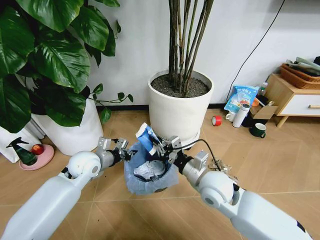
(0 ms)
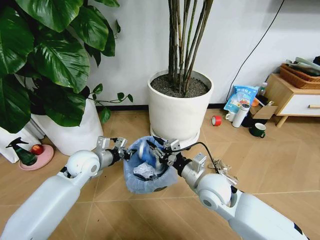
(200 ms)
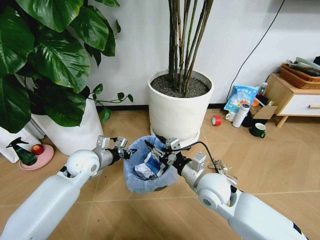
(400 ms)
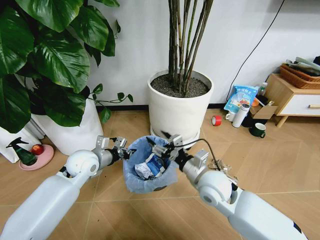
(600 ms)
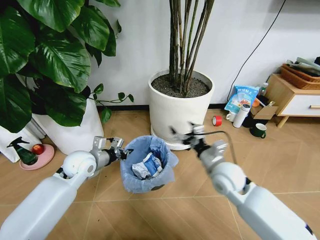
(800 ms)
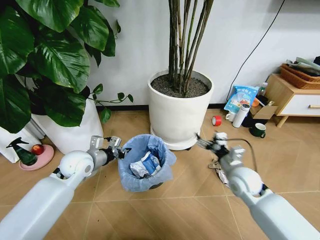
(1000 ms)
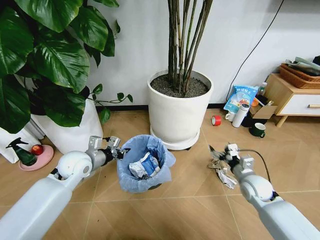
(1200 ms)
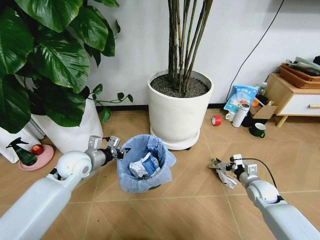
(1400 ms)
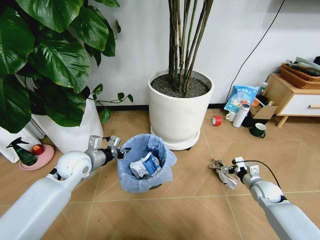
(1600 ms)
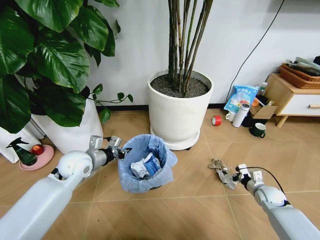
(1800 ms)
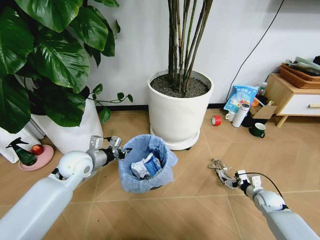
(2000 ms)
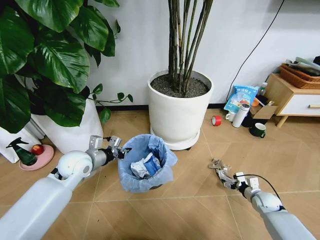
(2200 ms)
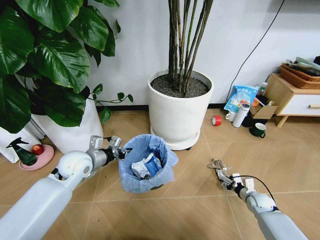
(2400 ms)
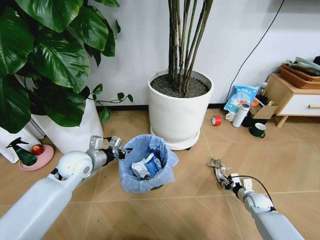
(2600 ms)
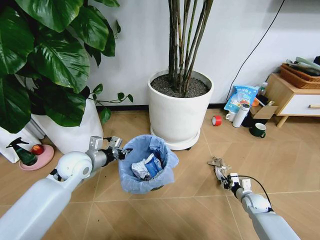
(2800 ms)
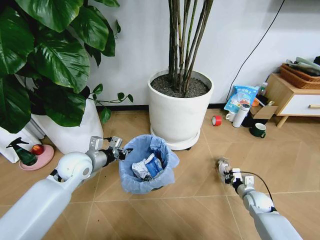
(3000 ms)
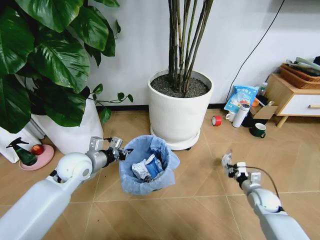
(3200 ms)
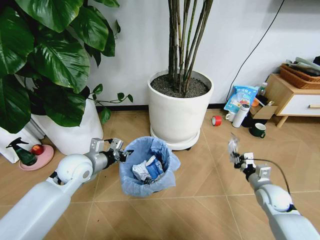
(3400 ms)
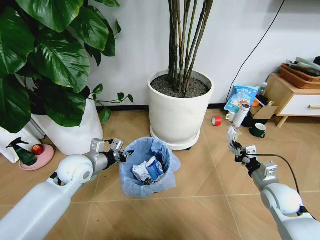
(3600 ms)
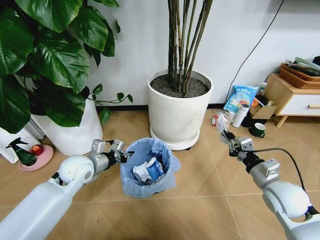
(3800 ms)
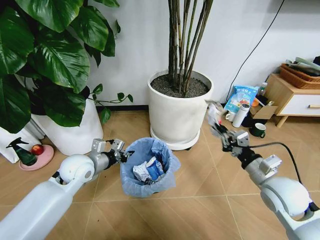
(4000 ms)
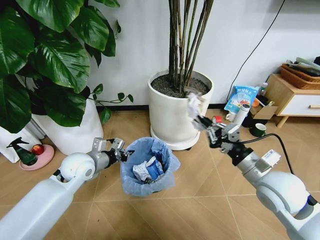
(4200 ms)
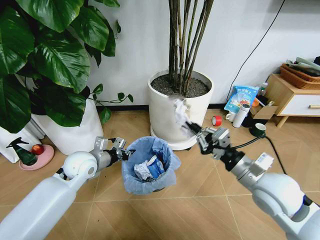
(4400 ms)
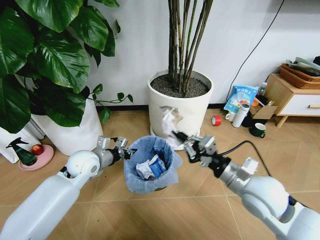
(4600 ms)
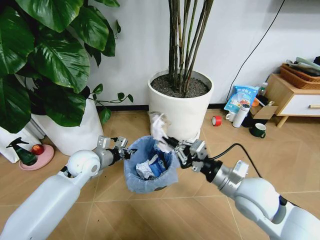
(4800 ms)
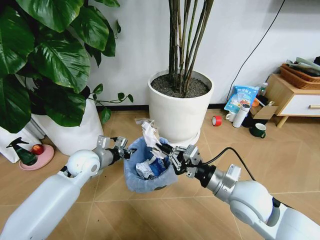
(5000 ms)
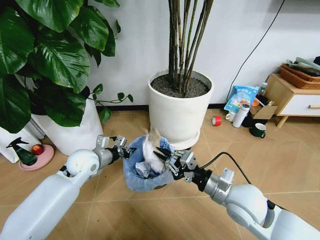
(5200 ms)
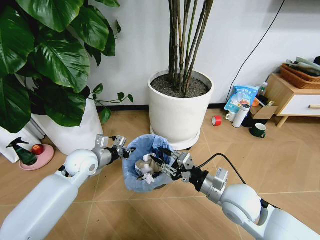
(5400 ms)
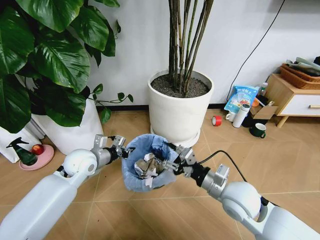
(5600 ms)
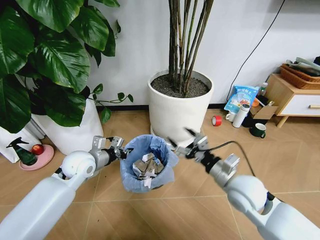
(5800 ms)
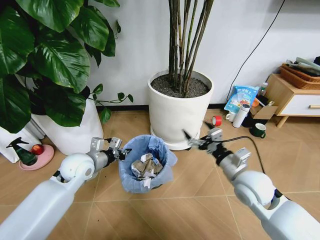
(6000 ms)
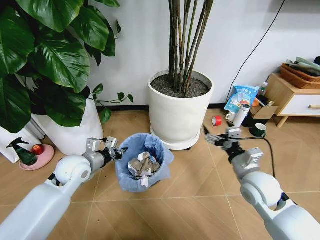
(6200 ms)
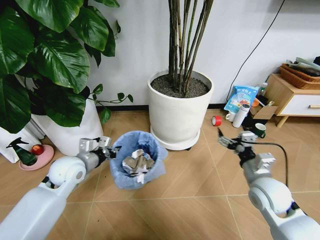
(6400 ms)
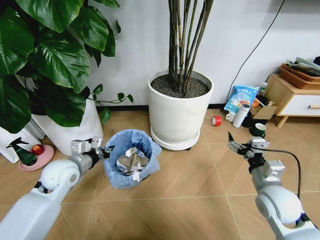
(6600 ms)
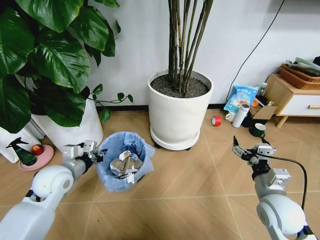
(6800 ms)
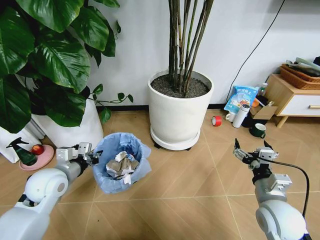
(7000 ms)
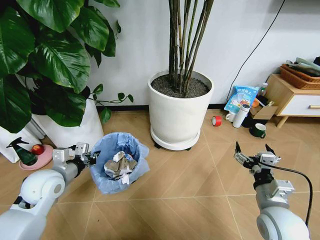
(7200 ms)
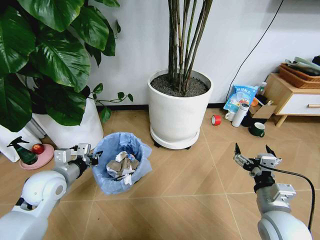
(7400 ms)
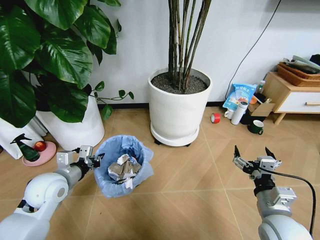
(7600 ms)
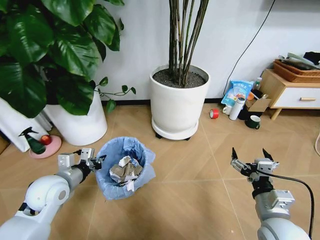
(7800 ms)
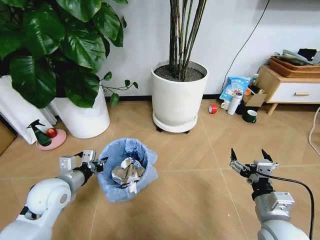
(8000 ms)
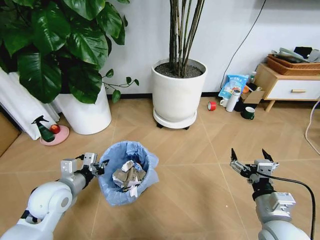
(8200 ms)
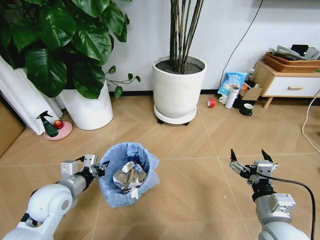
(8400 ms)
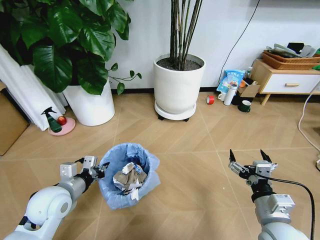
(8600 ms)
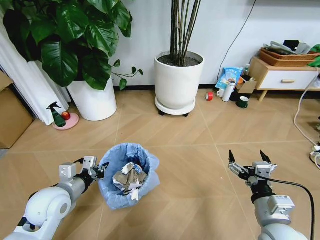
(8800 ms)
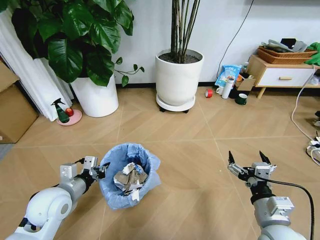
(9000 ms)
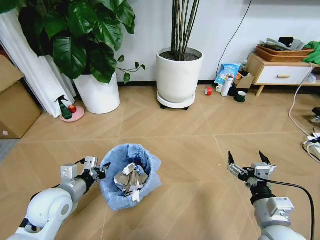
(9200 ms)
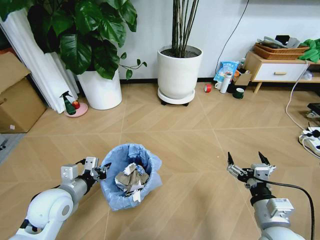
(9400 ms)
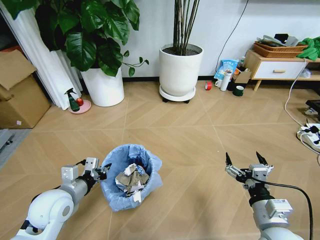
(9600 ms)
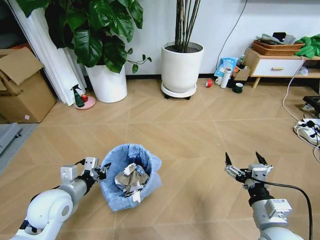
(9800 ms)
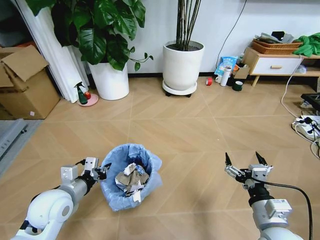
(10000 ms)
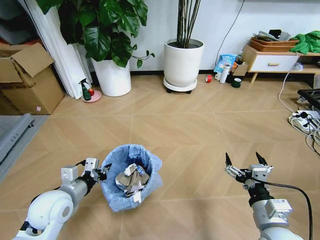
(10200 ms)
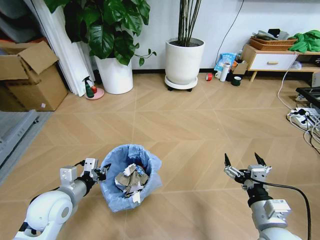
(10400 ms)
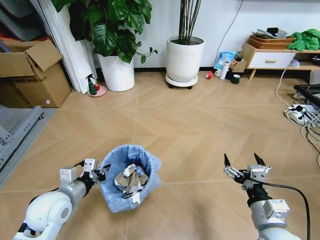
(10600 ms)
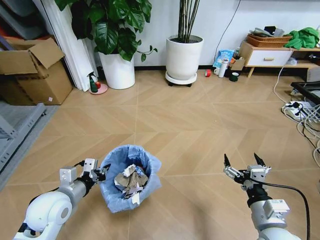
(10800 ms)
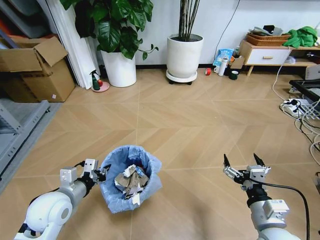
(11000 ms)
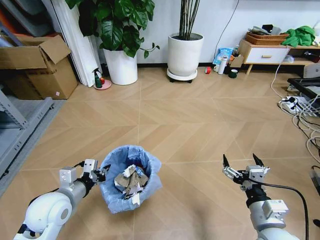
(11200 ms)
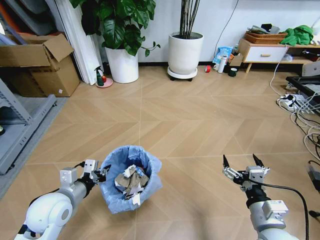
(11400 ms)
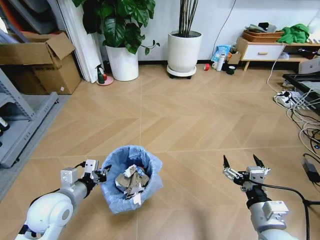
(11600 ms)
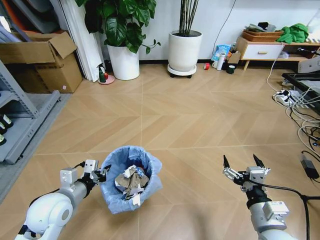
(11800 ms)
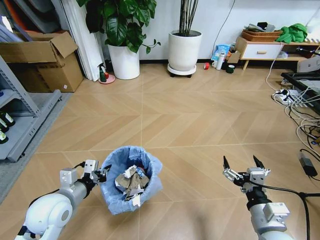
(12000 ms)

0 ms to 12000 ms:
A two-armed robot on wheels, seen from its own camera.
Task of the whole recording: Pick up the trash bin and place the garbage on the floor into it.
0 ms to 1600 ms: The right gripper shifts roughly 35 cm to the right and downward, and opens its fingers.
1600 ms to 3000 ms: The right gripper shifts about 5 cm downward, and closes its fingers.
3000 ms to 4400 ms: The right gripper goes about 35 cm upward and to the left.
4400 ms to 6000 ms: The right gripper travels downward by some 5 cm, and opens.
6000 ms to 7600 ms: The left gripper is displaced backward and to the left by roughly 10 cm; the right gripper is displaced backward by roughly 10 cm.

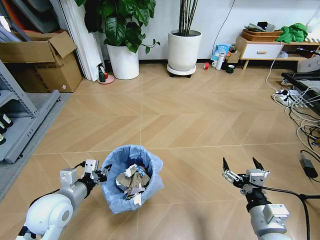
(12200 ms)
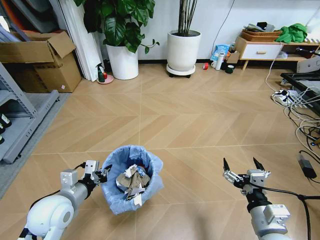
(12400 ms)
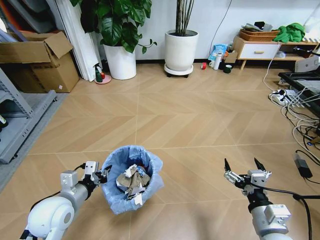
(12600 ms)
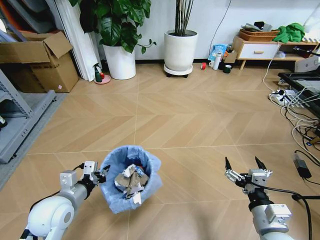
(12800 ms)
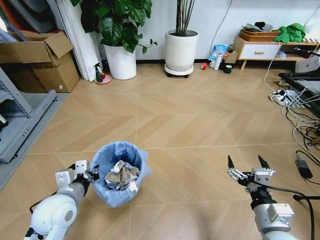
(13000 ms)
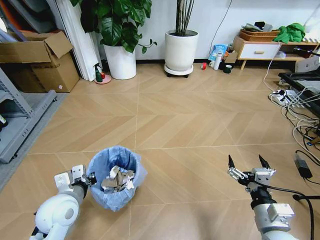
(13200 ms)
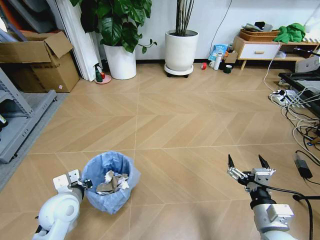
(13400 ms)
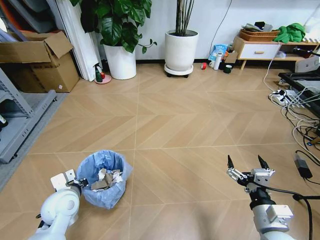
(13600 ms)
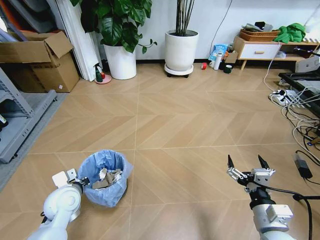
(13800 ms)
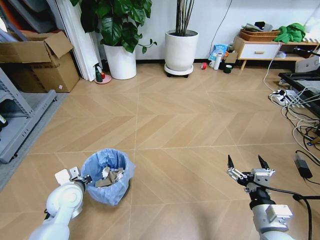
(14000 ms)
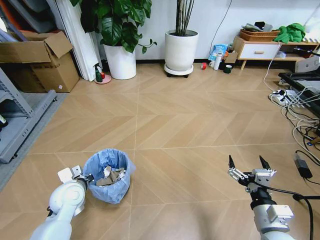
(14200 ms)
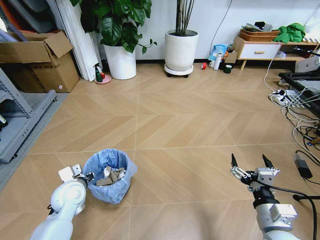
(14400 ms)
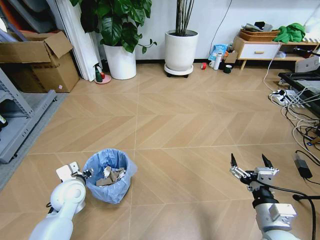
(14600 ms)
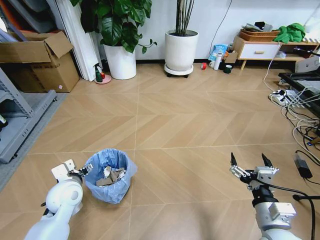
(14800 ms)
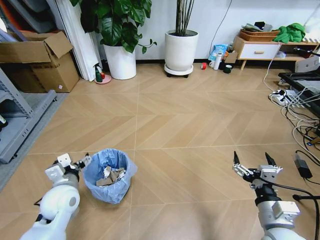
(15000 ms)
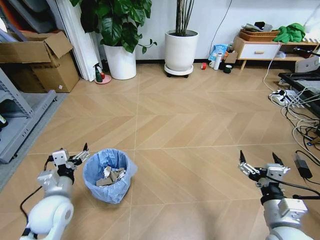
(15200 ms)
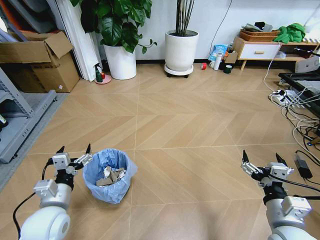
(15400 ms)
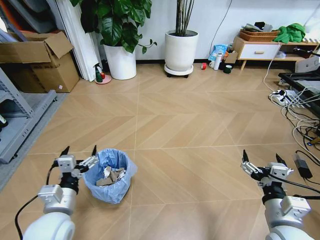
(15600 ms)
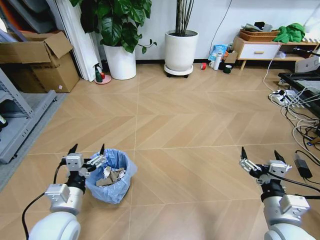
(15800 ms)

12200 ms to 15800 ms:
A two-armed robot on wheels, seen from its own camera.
Task of the whole recording: Pick up the trash bin and place the garbage on the floor into it.
12200 ms to 14000 ms: The left gripper is displaced downward and forward by about 10 cm.
14000 ms to 15800 ms: The left gripper is displaced backward and upward by about 10 cm, and opens up.
